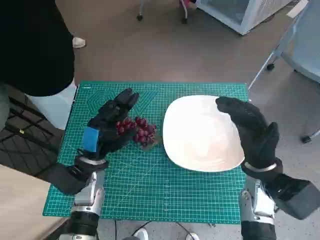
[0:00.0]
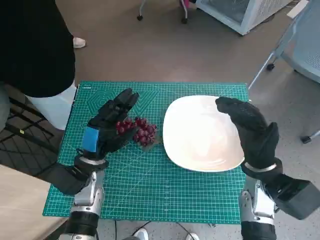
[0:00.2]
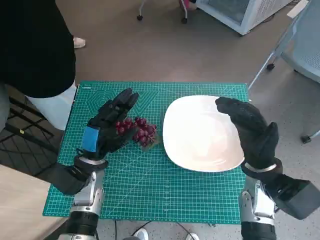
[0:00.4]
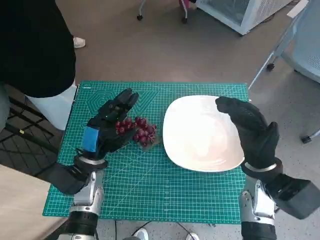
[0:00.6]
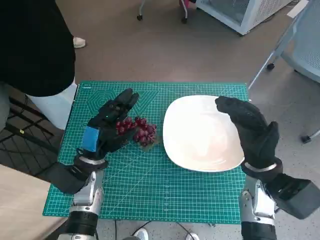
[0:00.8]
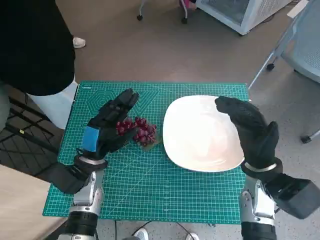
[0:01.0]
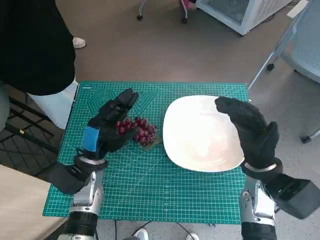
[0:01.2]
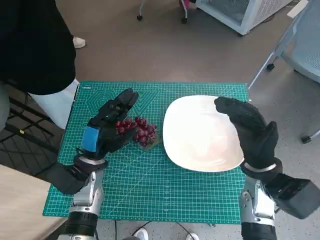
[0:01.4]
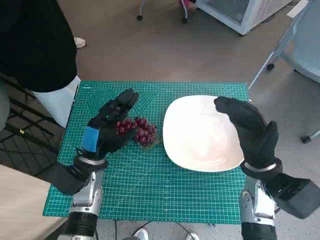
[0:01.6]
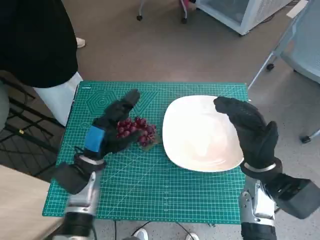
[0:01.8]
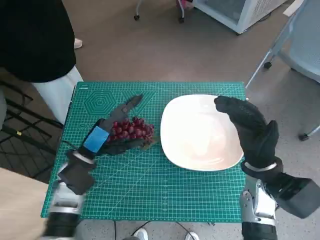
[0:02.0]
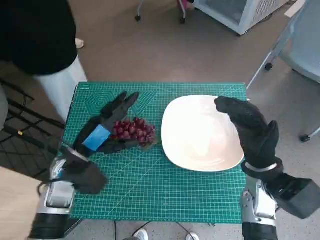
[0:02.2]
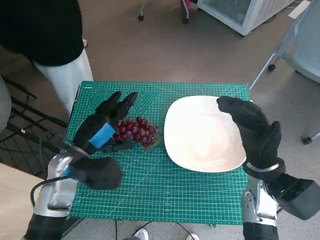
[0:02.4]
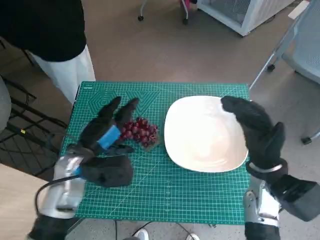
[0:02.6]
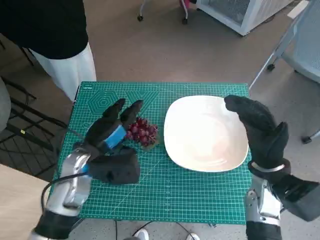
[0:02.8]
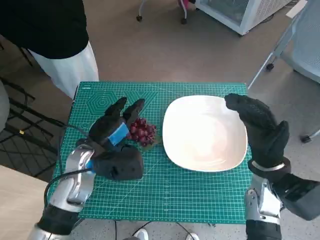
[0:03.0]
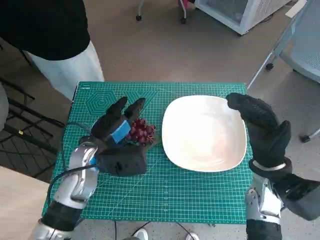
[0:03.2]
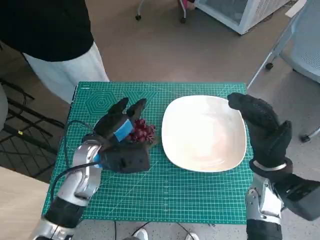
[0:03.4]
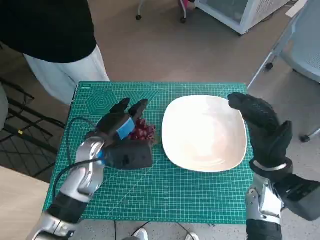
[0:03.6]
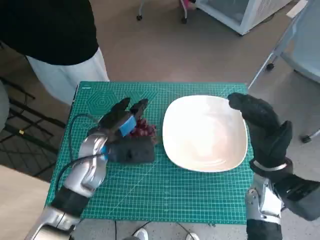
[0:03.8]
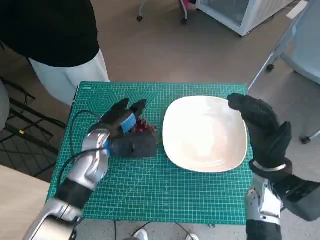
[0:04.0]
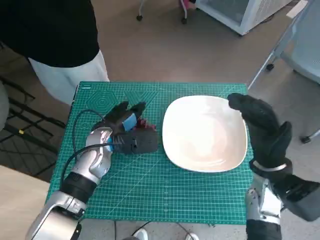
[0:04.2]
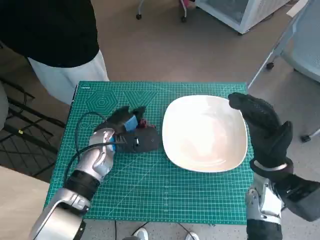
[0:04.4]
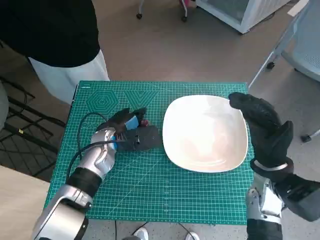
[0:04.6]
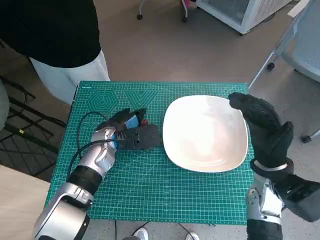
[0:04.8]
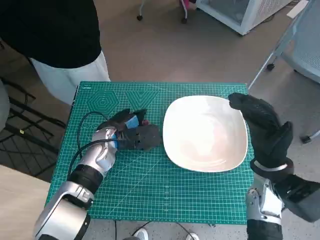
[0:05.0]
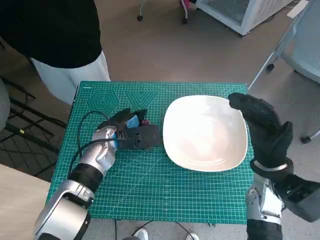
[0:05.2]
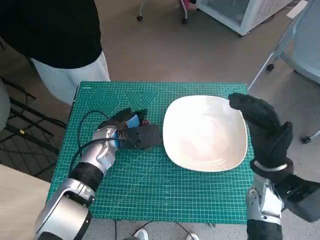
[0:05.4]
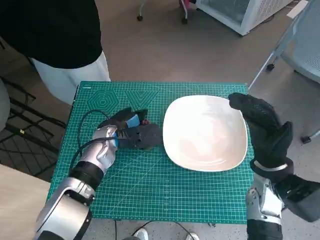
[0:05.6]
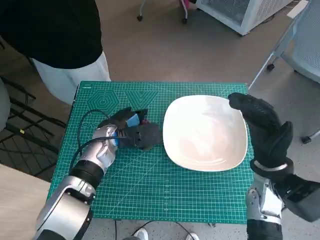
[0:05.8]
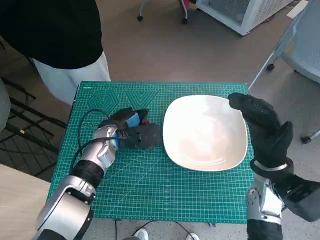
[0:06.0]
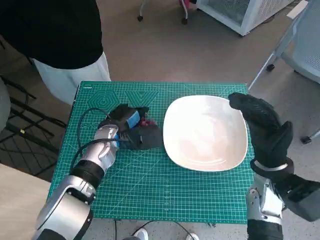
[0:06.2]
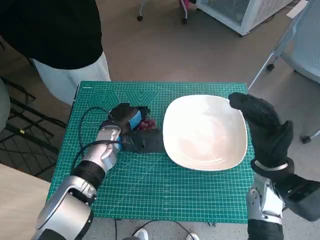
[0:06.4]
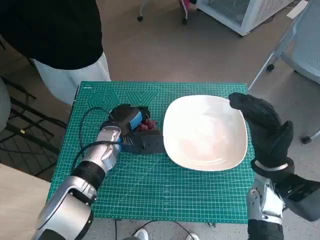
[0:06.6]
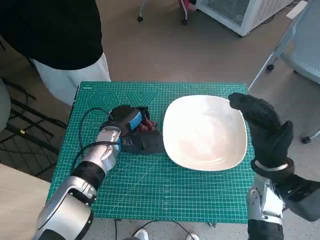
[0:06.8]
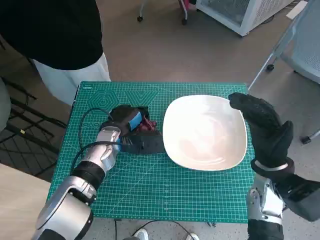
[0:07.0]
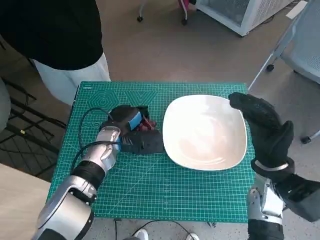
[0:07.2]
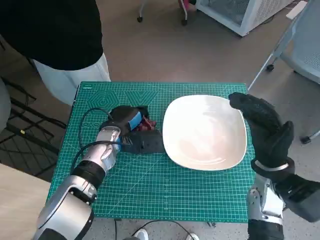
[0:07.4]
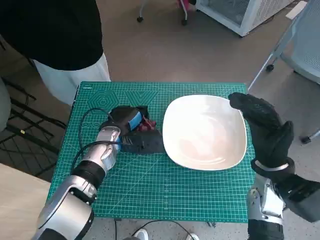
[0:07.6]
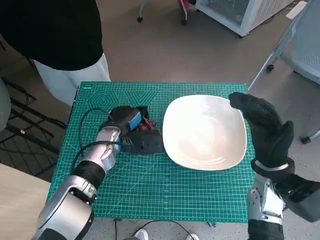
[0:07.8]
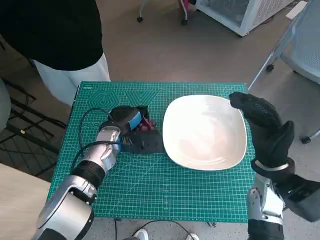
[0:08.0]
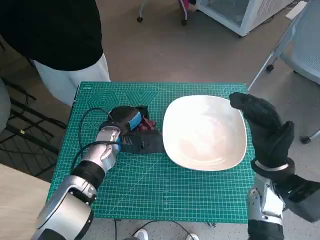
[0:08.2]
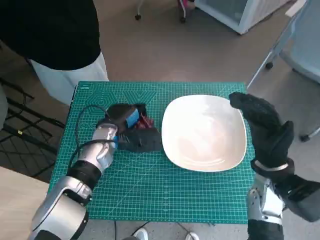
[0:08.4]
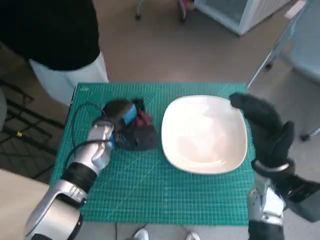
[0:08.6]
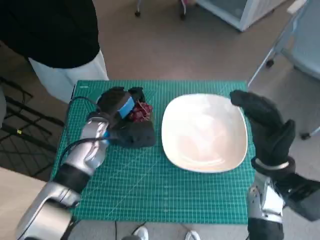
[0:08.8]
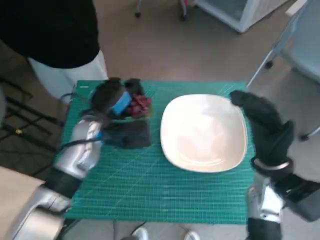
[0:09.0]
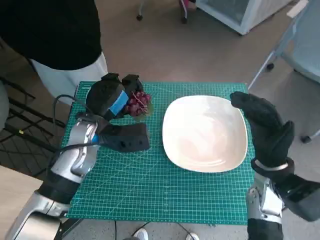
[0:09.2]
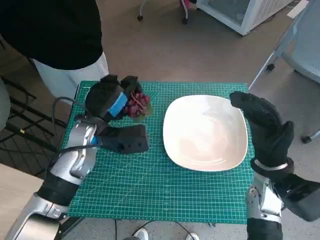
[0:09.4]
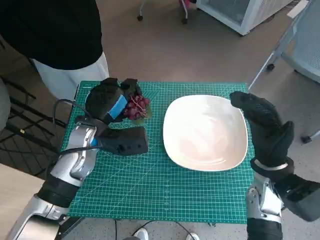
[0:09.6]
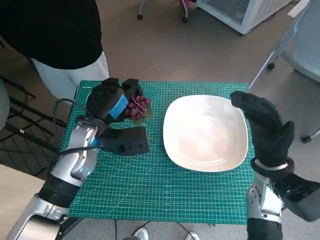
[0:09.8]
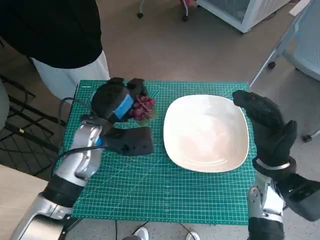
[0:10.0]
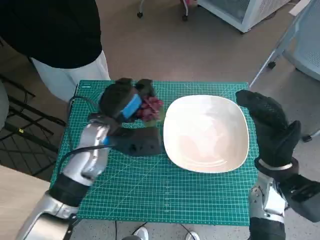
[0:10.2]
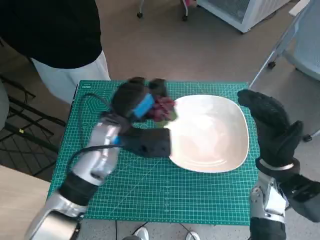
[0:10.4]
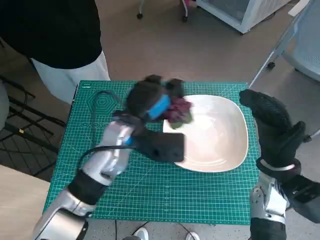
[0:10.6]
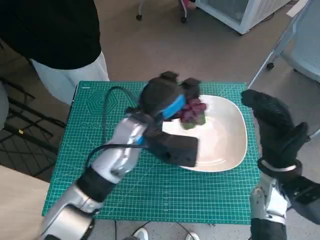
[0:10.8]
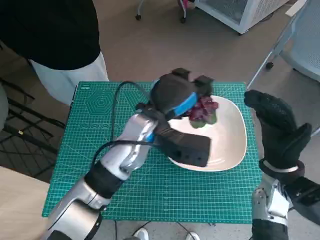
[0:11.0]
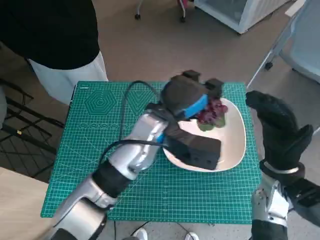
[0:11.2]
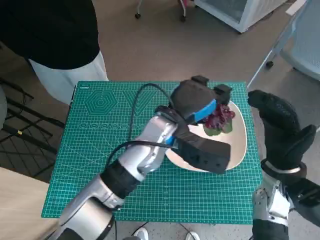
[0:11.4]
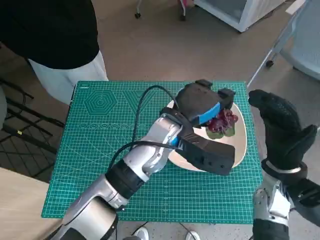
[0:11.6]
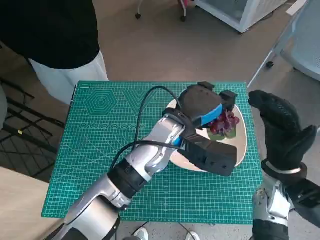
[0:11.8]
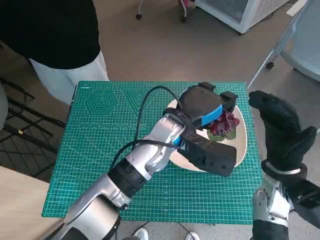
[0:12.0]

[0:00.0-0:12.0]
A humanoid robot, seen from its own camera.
Task of the whole recording: Pick up the grapes and put them on the plate.
Step, 0:00.0 to 0:06.8: Grasp the grapes with left hand.
0:03.0 to 0:04.4: The left hand travels forward by approximately 5 cm.
0:04.4 to 0:07.6: The hands stay close to where they were, moving slightly.
0:07.6 to 0:09.0: The left hand is displaced upward by approximately 5 cm.
0:09.0 to 0:10.4: There are only small adjustments of the hands.
0:10.4 to 0:12.0: The left hand heads to the right, covering about 10 cm.

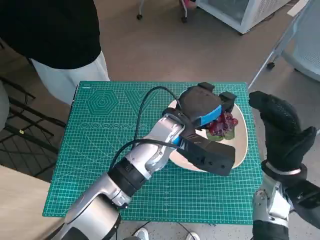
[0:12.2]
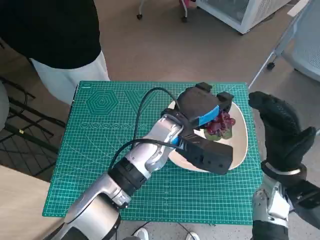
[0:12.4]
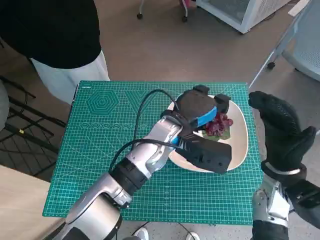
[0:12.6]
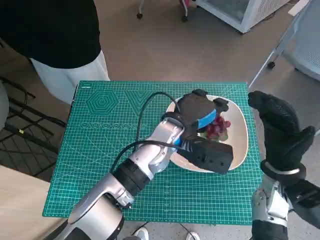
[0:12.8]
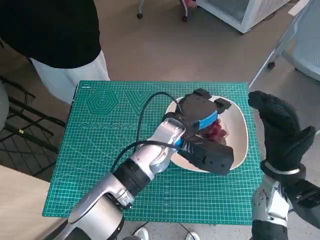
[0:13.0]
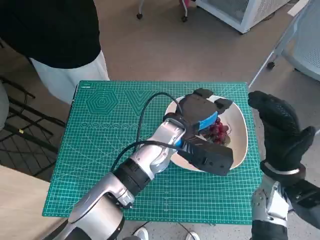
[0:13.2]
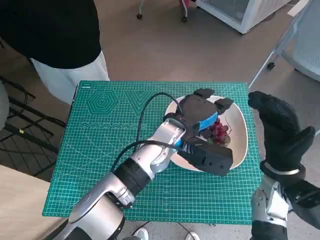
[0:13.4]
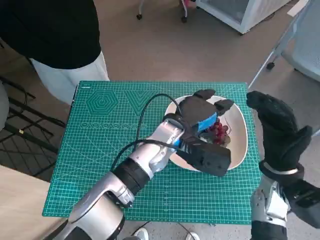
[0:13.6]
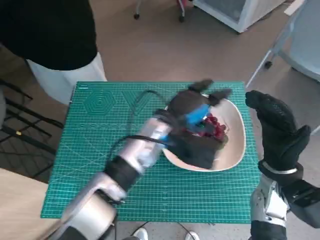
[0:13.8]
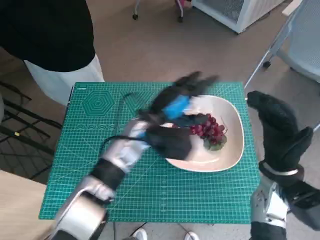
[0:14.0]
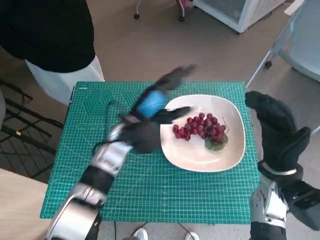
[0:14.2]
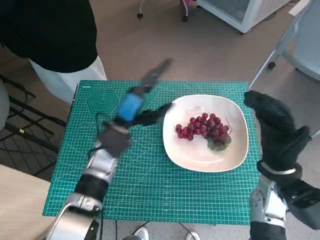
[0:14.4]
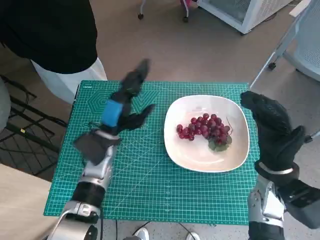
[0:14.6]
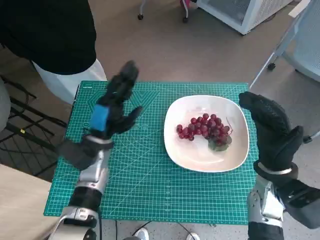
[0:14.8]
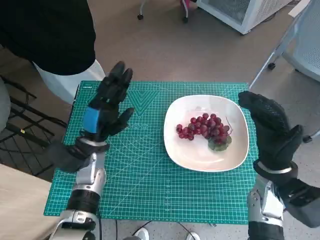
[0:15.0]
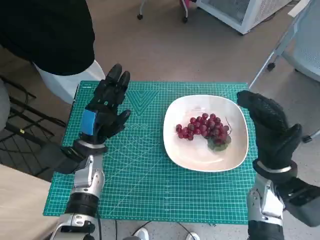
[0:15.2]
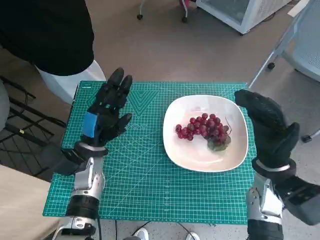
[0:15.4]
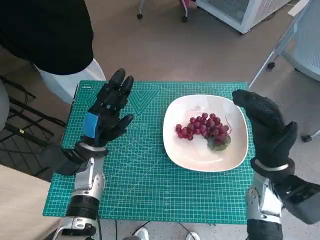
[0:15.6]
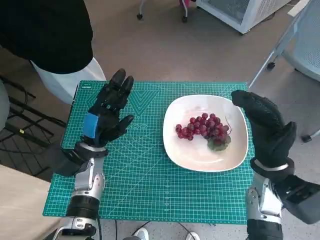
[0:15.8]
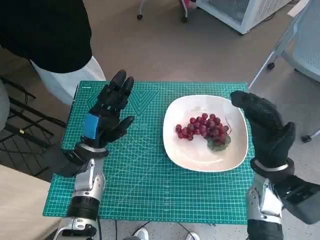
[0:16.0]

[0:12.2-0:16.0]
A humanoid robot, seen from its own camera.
Task of the whole recording: Pick up the grapes and put them on the plate.
0:12.2 to 0:13.4: The hands stay close to where they were, moving slightly.
0:13.4 to 0:14.8: The left hand shifts about 15 cm to the left.
0:14.8 to 0:16.0: The hands move only a little.

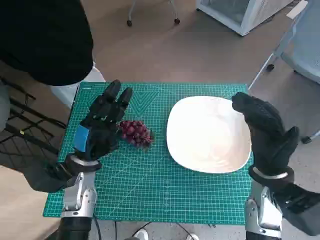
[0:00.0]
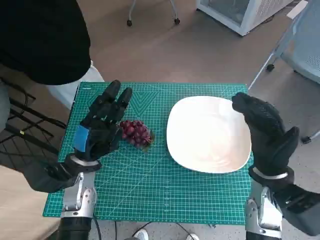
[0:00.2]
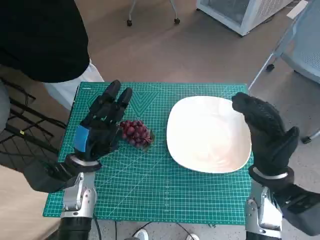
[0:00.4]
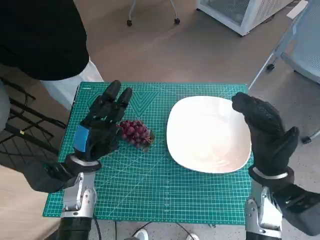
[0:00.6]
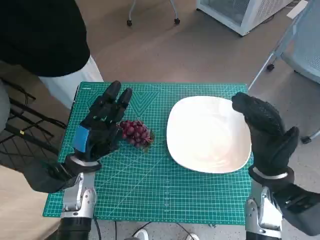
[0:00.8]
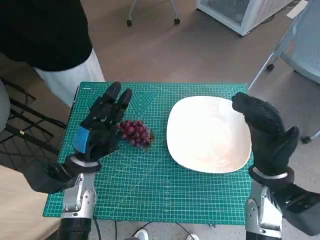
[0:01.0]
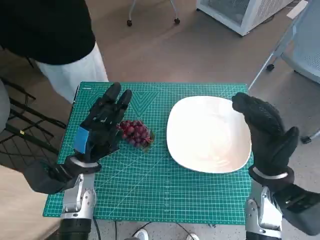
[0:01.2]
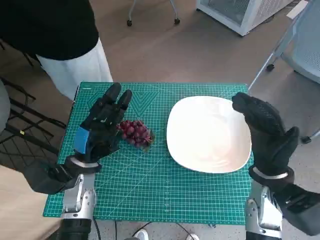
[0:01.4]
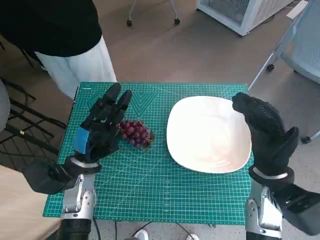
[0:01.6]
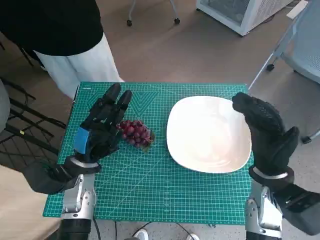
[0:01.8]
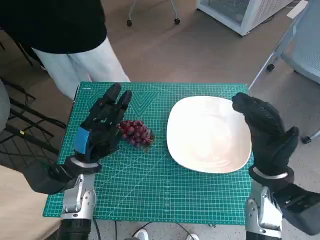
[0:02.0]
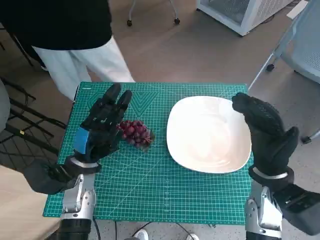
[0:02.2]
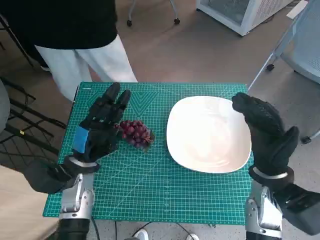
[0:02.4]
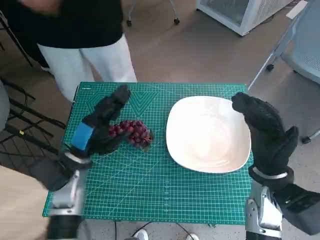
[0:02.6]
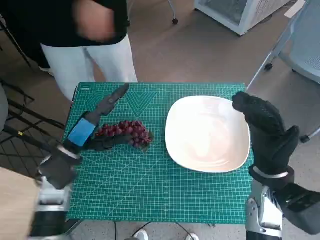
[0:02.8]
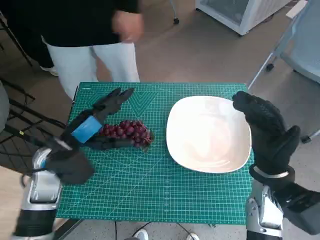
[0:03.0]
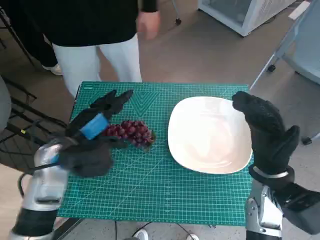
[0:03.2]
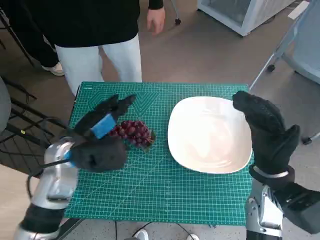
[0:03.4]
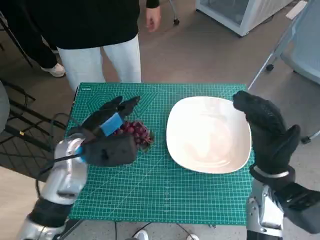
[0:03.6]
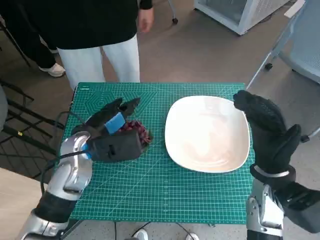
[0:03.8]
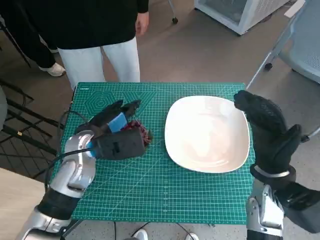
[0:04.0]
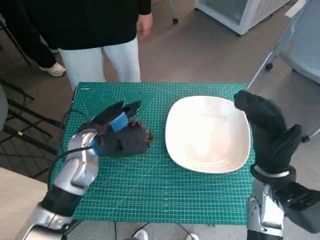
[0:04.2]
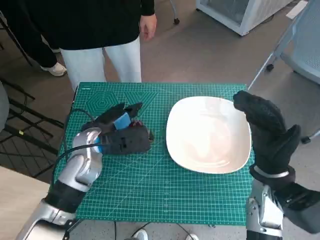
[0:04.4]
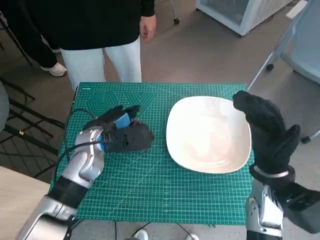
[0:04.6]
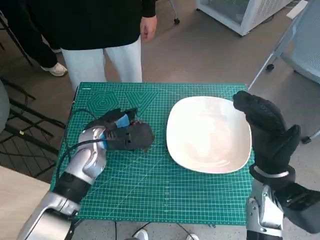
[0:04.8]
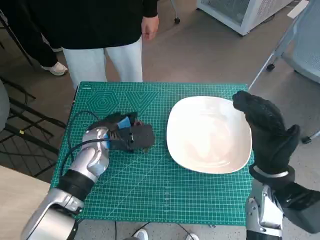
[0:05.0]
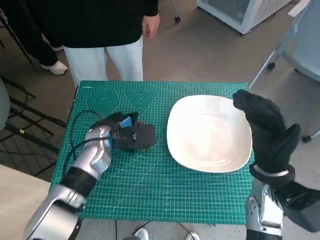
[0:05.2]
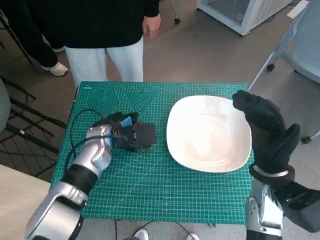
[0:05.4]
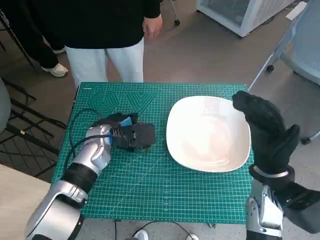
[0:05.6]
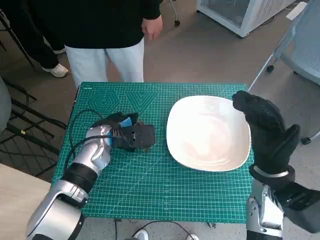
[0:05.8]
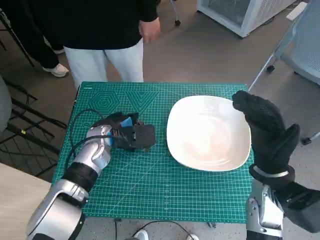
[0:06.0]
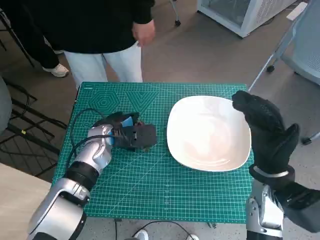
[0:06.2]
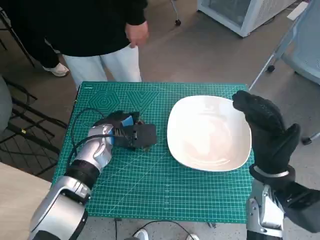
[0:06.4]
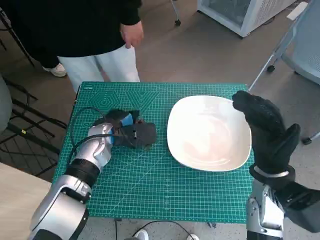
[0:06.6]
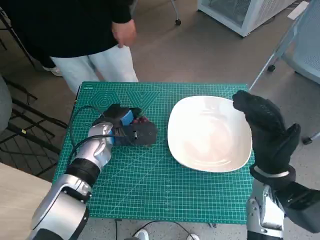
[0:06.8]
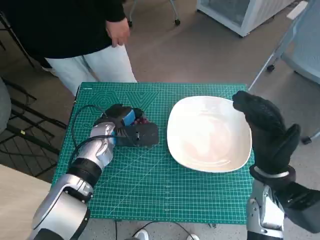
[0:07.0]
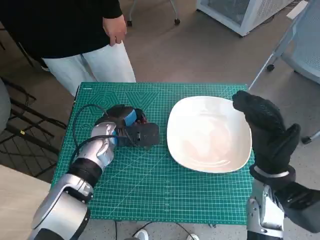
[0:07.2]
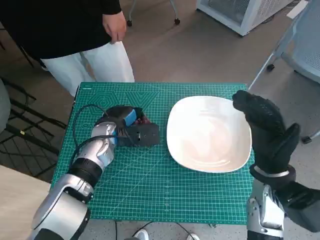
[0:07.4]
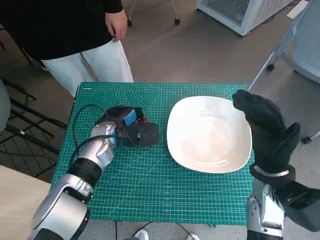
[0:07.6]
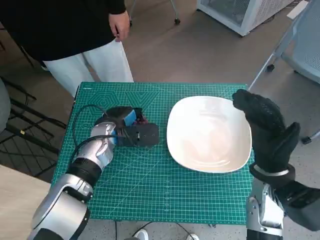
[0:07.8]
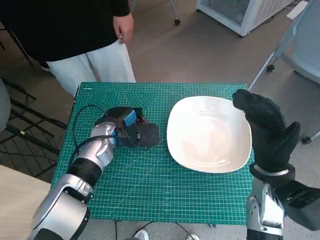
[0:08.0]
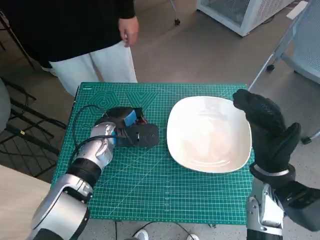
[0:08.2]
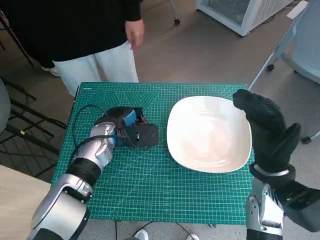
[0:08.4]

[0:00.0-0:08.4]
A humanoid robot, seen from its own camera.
Task of the whole recording: Pick up the grapes and put them on the plate.
Step, 0:00.0 to 0:07.0: Grasp the grapes with left hand.
0:02.8 to 0:04.2: The left hand goes about 5 cm to the right.
0:04.2 to 0:05.6: The left hand moves some 5 cm.
0:05.6 to 0:07.0: There are only small adjustments of the hands.
0:07.0 to 0:08.4: Both hands stay put.
